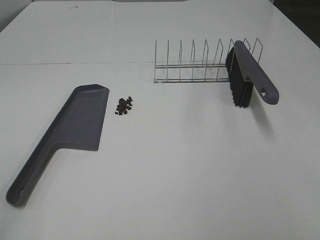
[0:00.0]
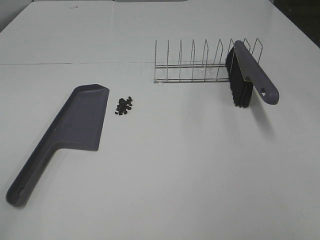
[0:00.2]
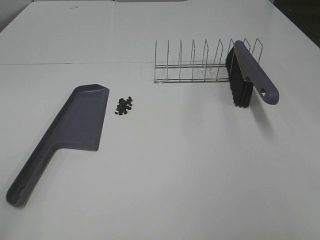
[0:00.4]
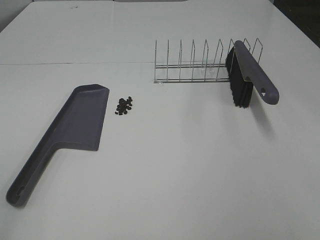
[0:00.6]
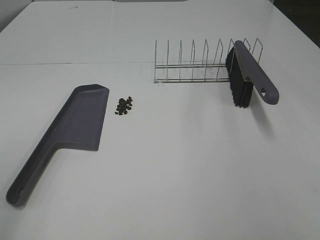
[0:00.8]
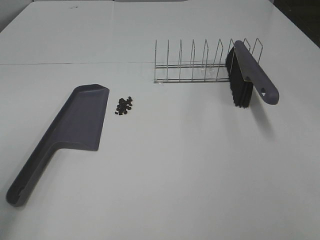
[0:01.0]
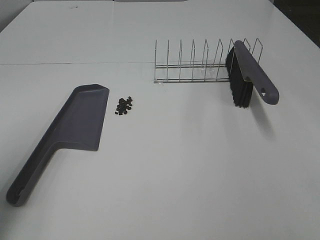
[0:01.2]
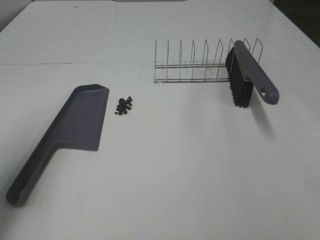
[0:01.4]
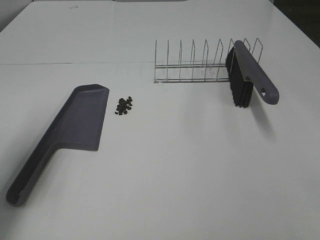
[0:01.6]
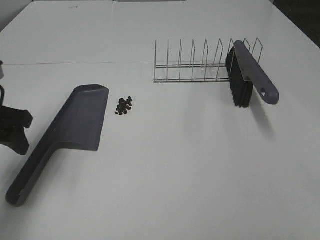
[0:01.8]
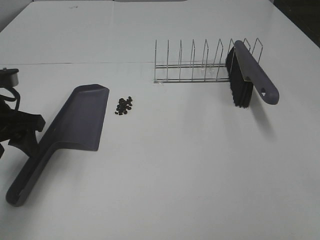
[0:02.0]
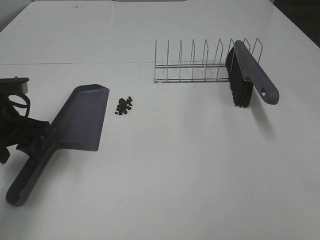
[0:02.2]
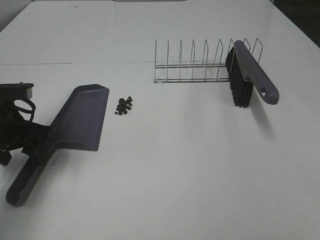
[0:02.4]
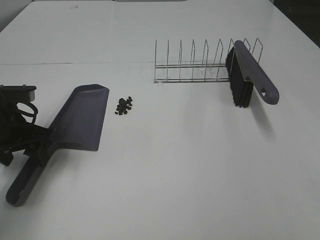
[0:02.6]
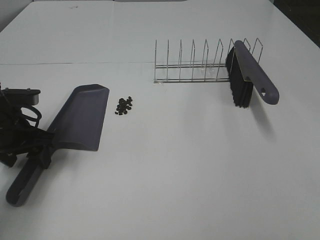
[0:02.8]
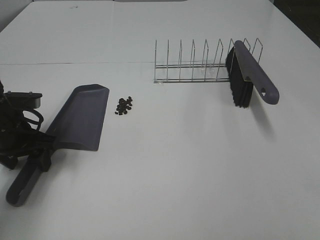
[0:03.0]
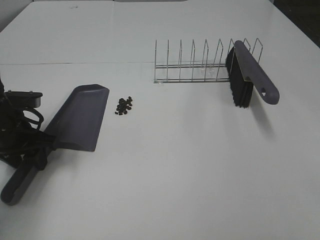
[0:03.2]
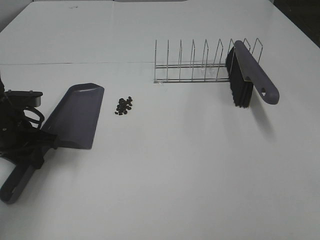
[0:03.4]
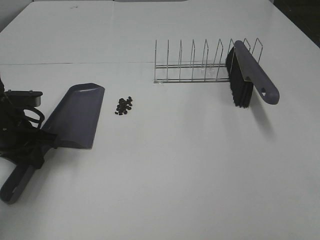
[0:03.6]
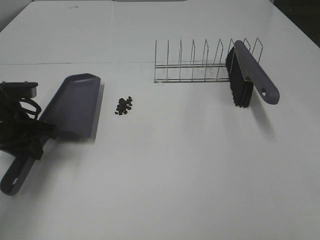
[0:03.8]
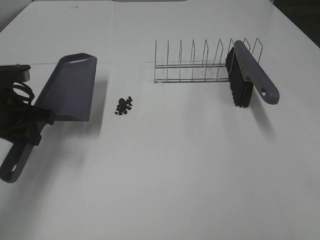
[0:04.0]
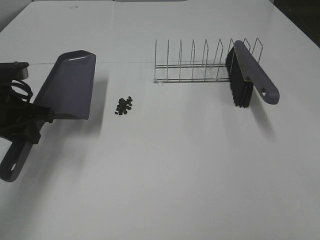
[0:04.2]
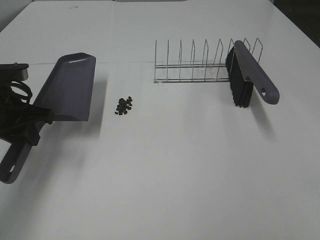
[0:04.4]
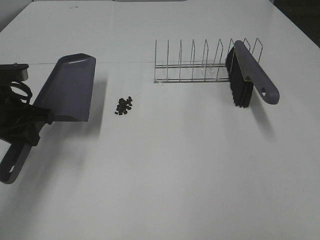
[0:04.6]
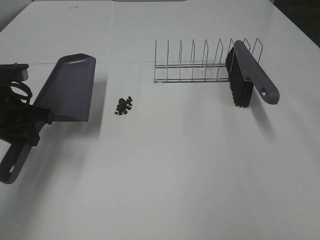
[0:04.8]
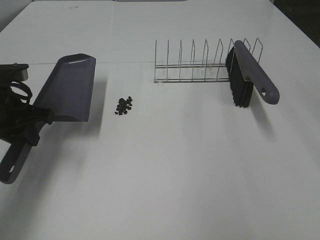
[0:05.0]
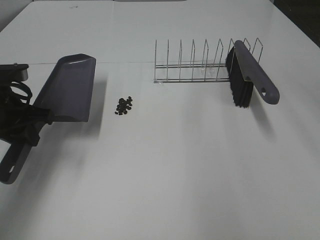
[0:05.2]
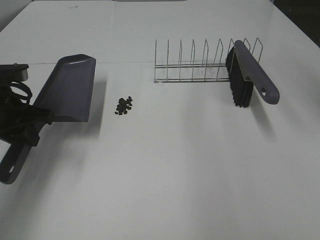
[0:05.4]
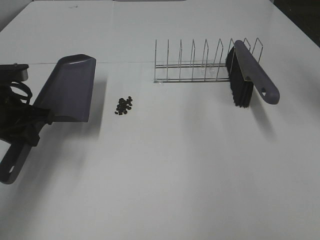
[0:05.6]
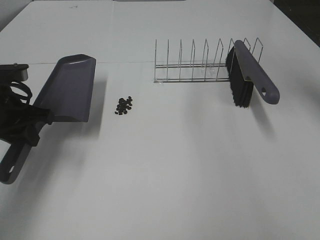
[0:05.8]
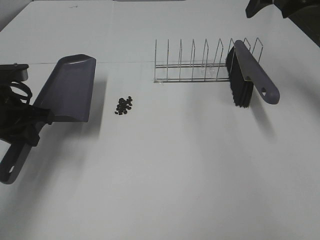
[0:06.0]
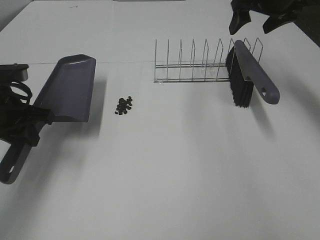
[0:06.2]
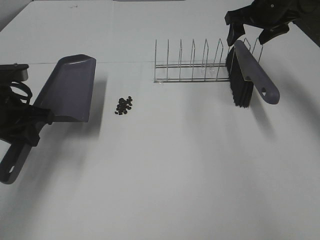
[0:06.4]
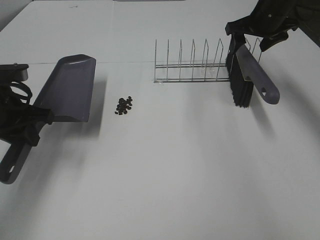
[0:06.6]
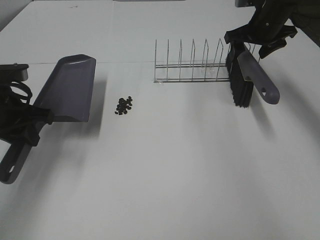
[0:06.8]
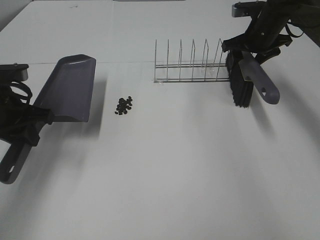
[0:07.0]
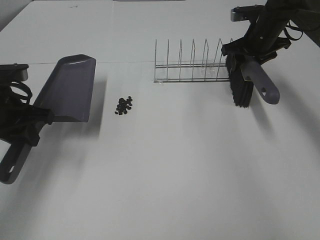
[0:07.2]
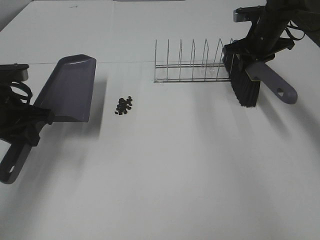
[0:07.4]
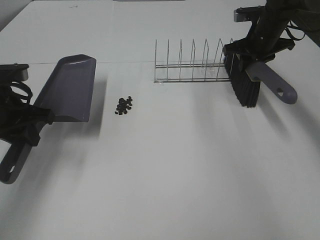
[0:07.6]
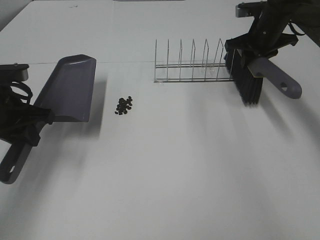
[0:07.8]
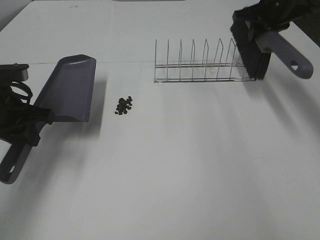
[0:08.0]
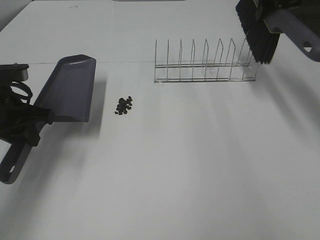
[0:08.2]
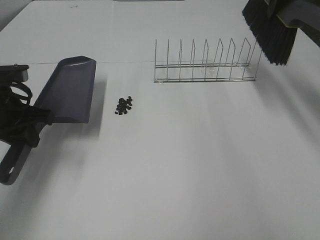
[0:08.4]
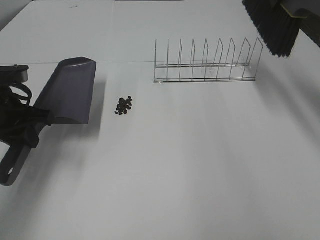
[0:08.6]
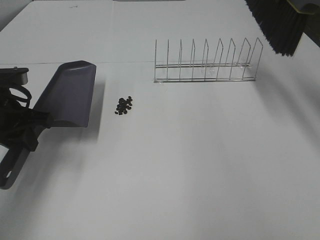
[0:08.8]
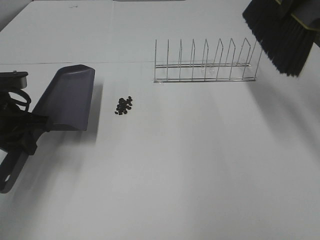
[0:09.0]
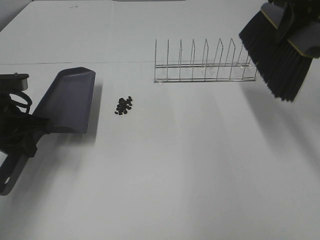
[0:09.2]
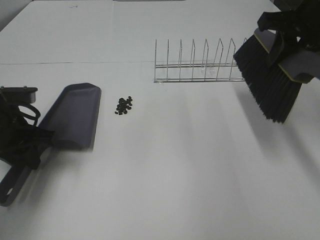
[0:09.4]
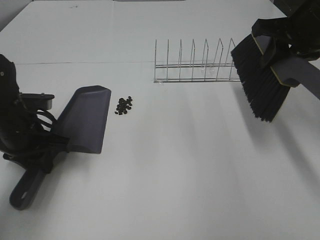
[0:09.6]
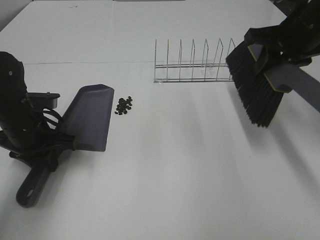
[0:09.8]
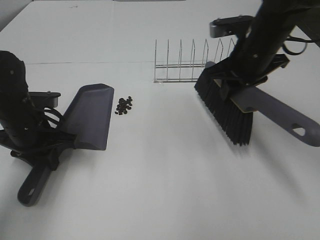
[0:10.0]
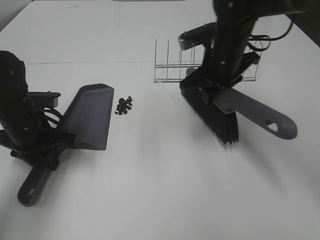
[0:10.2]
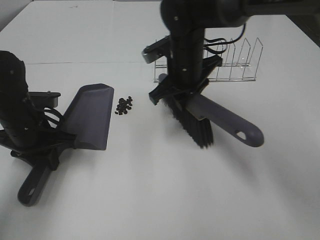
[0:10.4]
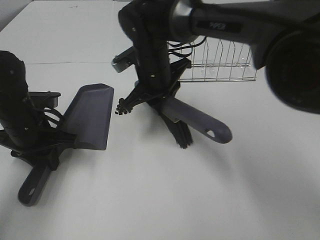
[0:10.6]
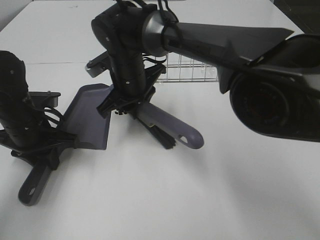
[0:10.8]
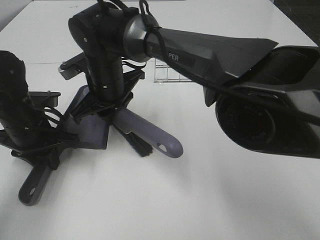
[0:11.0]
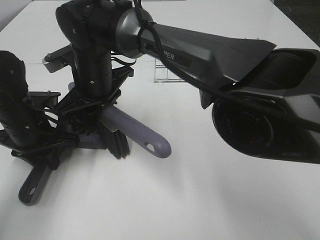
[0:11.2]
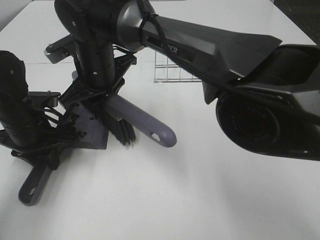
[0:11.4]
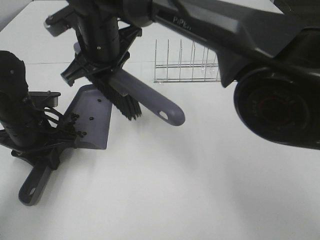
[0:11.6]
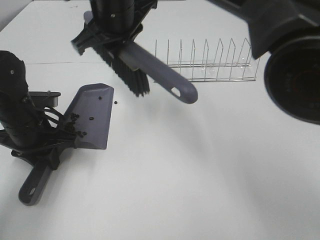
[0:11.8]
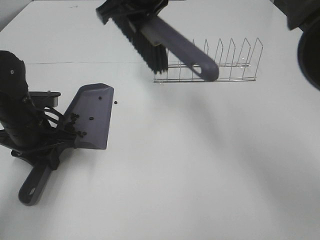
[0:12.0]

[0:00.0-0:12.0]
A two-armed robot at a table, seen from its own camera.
Task of the whole recording: Sweep Coffee Bean.
Step, 0:00.0 to 0:03.2: Left hand: grab the dustpan.
Step, 0:04.4 to 0:07.4: Right hand:grab the broom.
0:00.0 to 0:01.6: The left gripper moves forward, approximately 25 cm.
0:01.6 to 0:03.0: The left gripper heads downward and forward, covering some 15 cm.
0:03.0 to 0:04.4: The left gripper is displaced upward by some 5 cm, and closes.
0:04.4 to 0:06.0: The right gripper heads forward, covering some 50 cm.
0:06.0 to 0:07.6: The right gripper goes roughly 15 cm downward and forward, and closes its fingers.
0:07.6 to 0:09.0: The right gripper is displaced upward and backward by roughly 25 cm.
0:09.0 to 0:10.4: The left gripper changes place by some 5 cm, while the right gripper shifts roughly 30 cm to the left and downward.
0:10.4 to 0:12.0: The right gripper heads upward, covering some 15 cm.

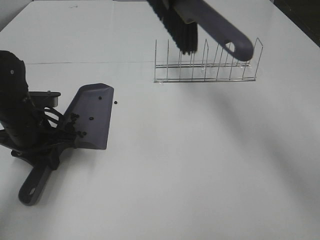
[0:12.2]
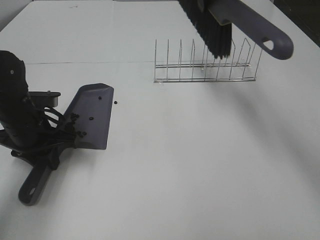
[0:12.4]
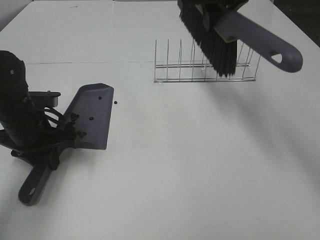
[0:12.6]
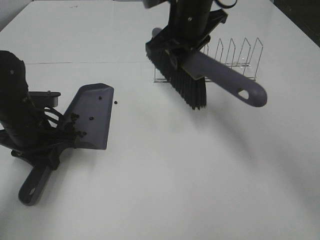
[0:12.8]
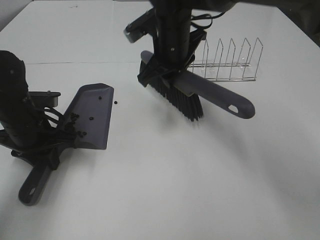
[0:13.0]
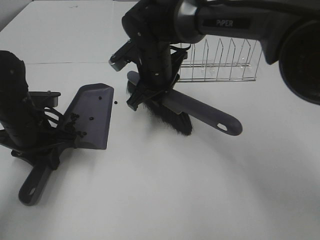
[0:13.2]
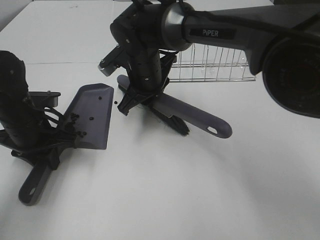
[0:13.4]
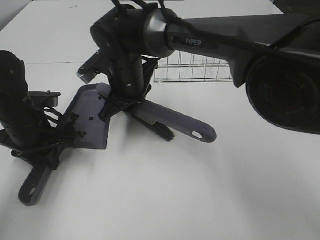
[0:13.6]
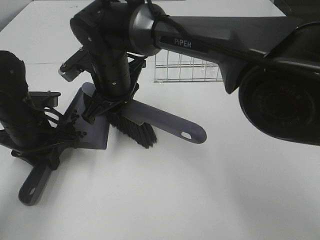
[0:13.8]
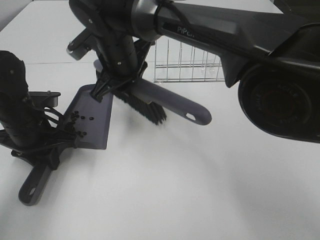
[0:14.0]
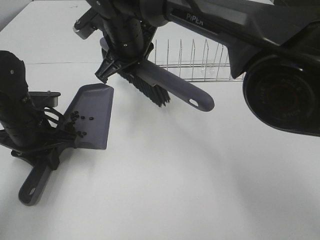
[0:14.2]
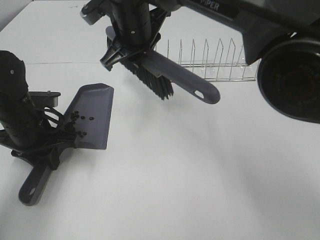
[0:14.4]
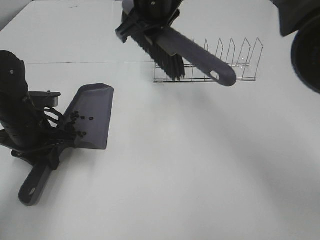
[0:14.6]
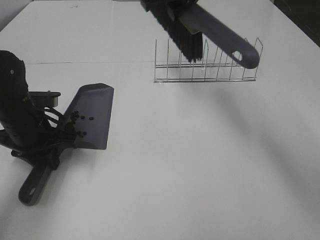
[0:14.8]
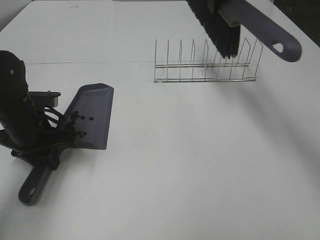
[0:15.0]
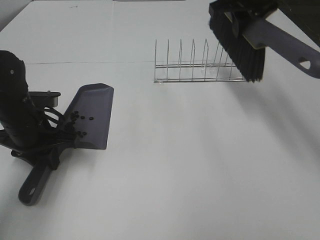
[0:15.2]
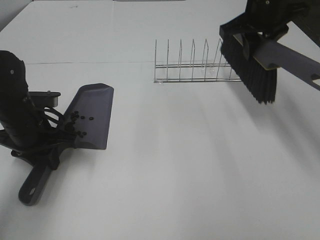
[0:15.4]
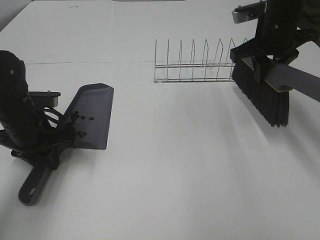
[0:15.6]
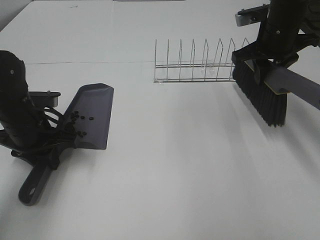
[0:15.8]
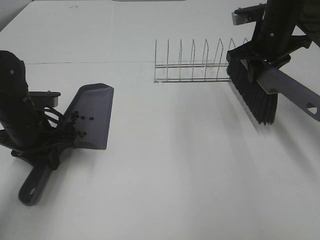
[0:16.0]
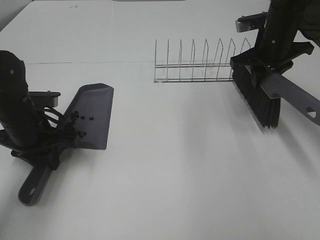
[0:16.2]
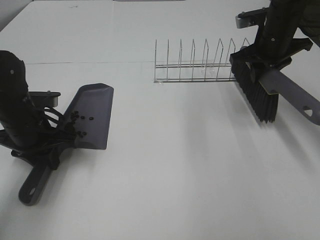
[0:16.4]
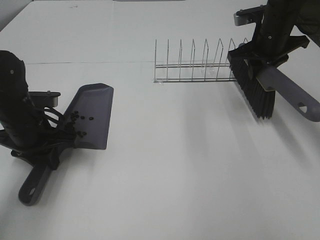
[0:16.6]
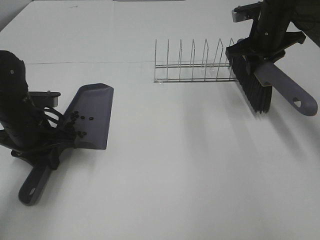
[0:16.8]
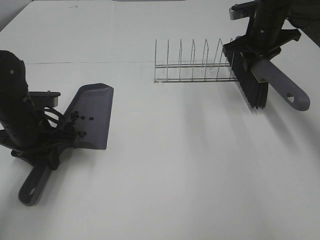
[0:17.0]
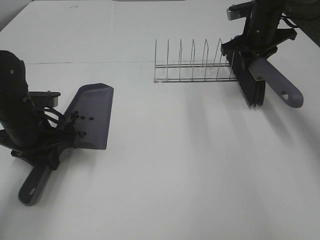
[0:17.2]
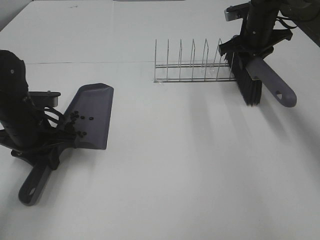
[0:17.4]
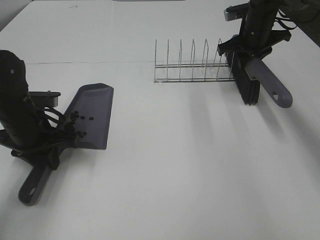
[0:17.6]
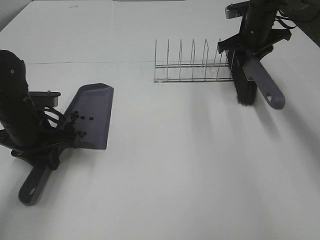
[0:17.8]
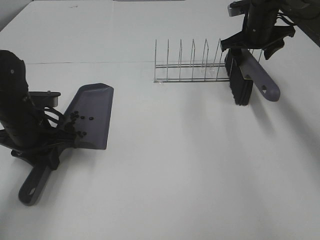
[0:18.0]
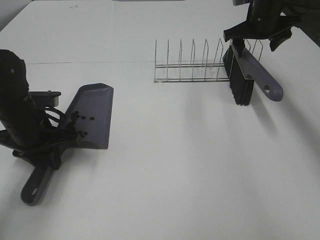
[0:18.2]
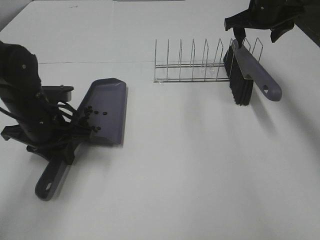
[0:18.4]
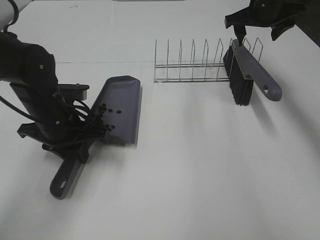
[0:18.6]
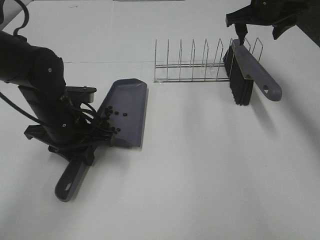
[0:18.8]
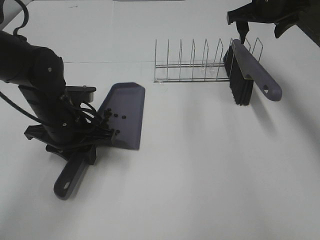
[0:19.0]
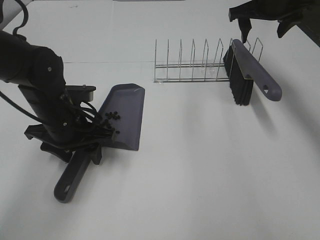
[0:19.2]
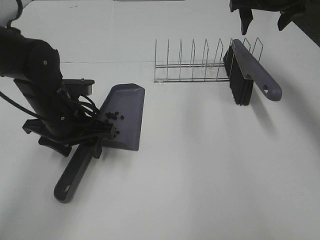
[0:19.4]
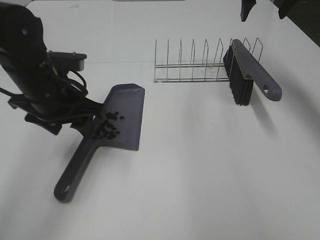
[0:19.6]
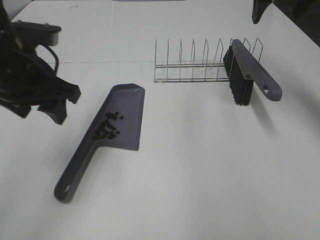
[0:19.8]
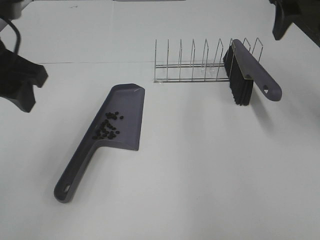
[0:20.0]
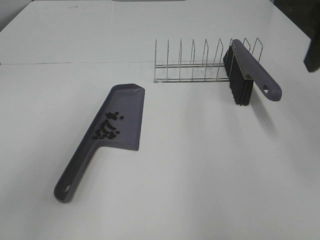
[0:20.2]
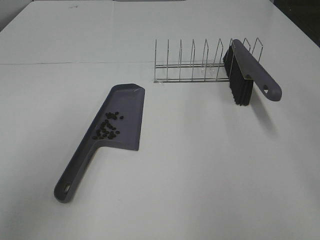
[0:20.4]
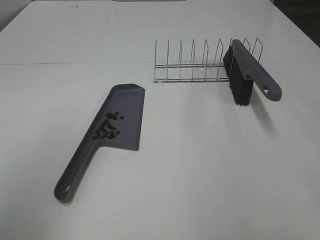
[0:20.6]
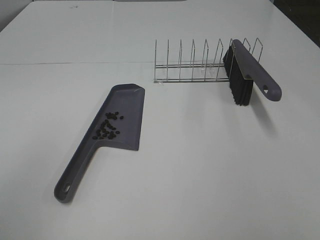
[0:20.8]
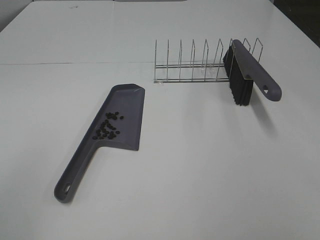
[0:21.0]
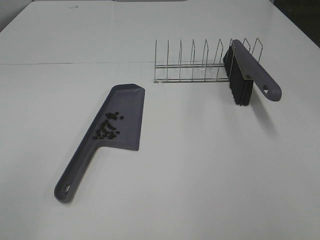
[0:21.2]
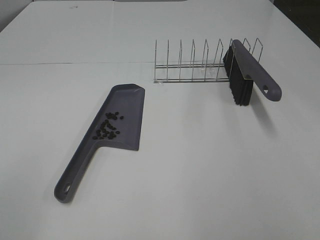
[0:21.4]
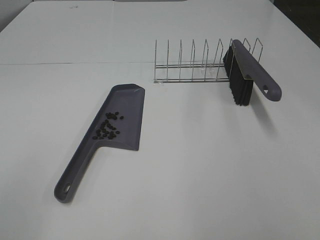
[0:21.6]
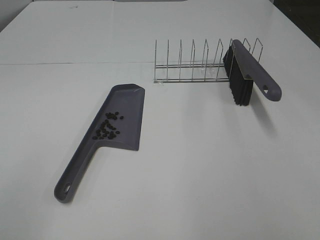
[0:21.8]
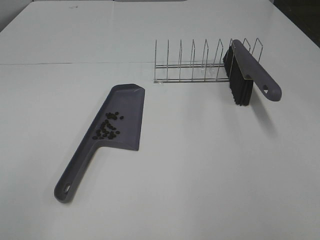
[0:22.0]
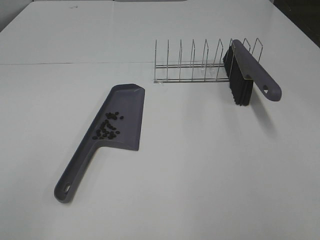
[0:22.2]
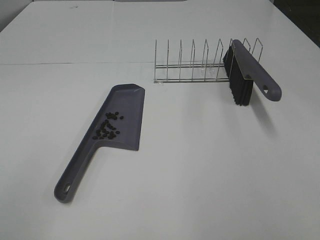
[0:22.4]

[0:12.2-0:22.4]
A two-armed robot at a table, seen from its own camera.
Task of the whole recording: Sweep Coffee Bean.
Step, 0:12.2 to 0:14.2: Right hand:sweep the coffee beans into the dustpan.
Step, 0:14.4 to 0:17.8: Right hand:place the broom on the rack.
Step, 0:18.0 to 0:19.4: Left hand:place the dustpan on the table.
0:12.2 to 0:13.6: The right gripper is displaced downward and to the left by approximately 20 cm.
0:13.6 to 0:15.2: The right gripper heads to the right and upward, covering some 25 cm.
0:15.2 to 0:16.6: The right gripper moves downward and to the right, some 10 cm.
0:16.6 to 0:18.0: The right gripper moves forward, some 5 cm, and opens.
0:18.0 to 0:19.4: The left gripper heads to the right, covering roughly 5 cm, and opens. The right gripper shifts approximately 10 cm upward.
0:19.4 to 0:21.0: The right gripper is displaced backward by approximately 50 cm; the left gripper goes approximately 35 cm backward, upward and to the left.
